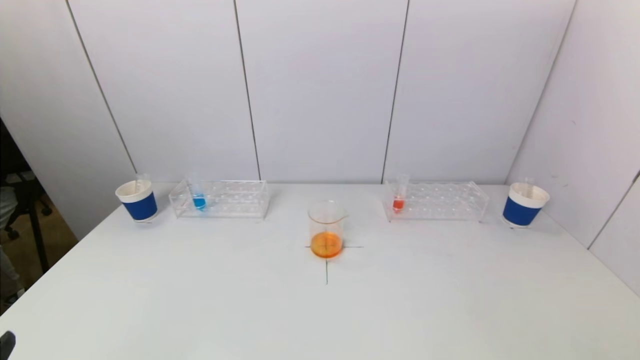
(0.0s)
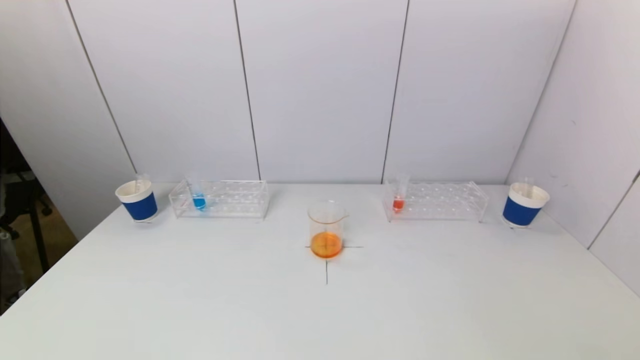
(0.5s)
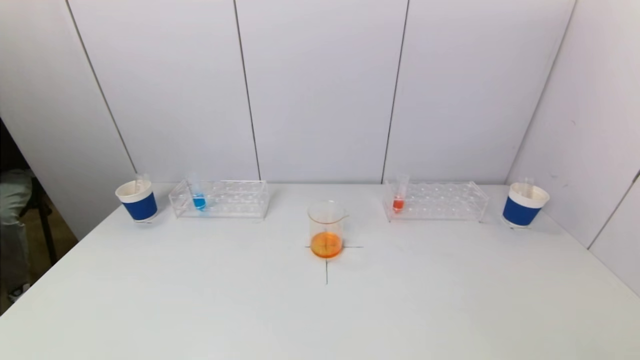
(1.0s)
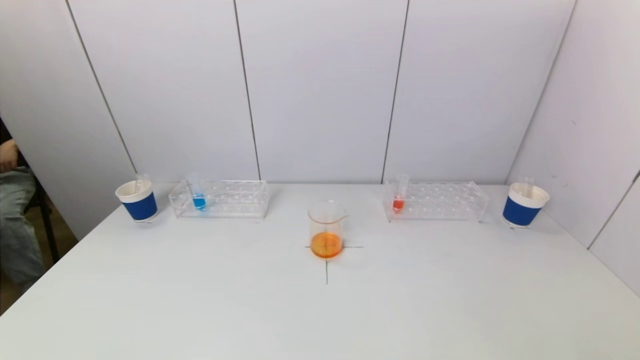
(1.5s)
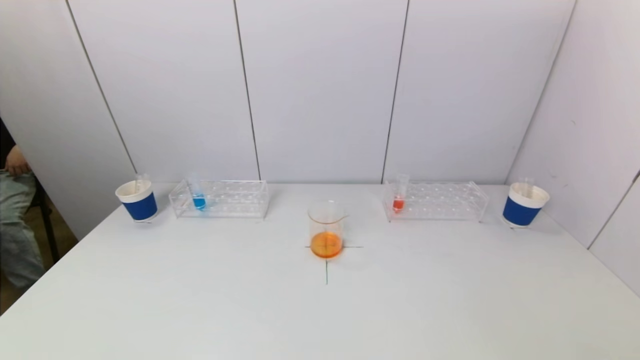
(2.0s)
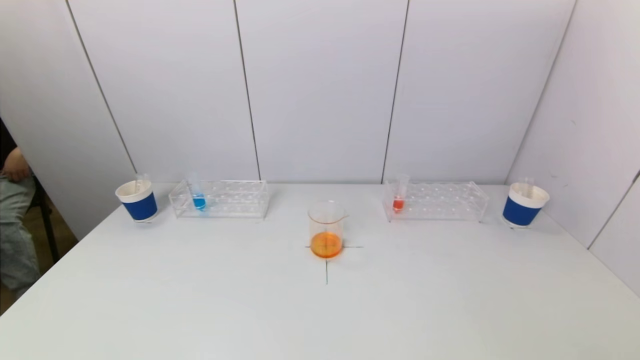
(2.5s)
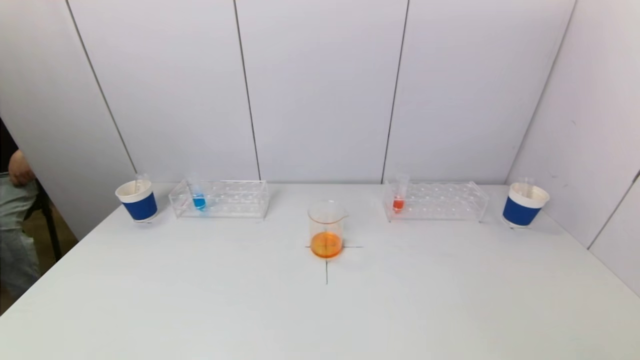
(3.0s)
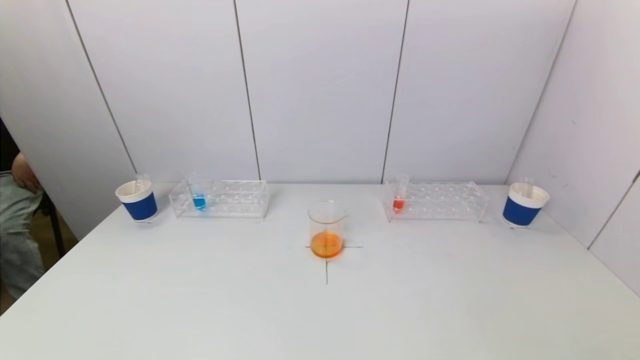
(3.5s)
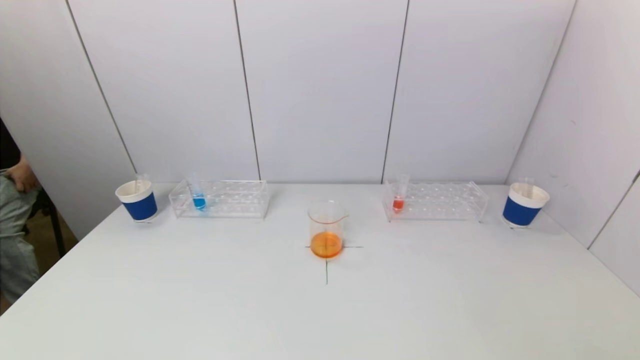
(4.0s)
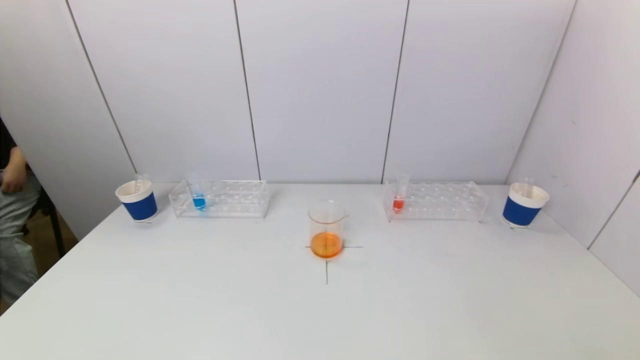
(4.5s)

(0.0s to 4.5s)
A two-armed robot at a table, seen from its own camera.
Task of the whole recording: pick up a test tube with pigment on left test tube rack and a test tube with pigment on right test tube rack by grippers and pour them into the beaker.
0.0s - 2.0s: The left gripper goes some 10 cm downward.
2.0s - 4.5s: Both grippers stay put.
